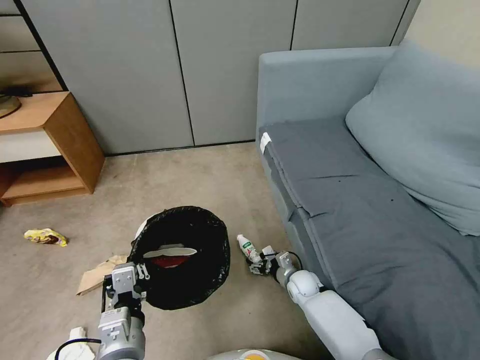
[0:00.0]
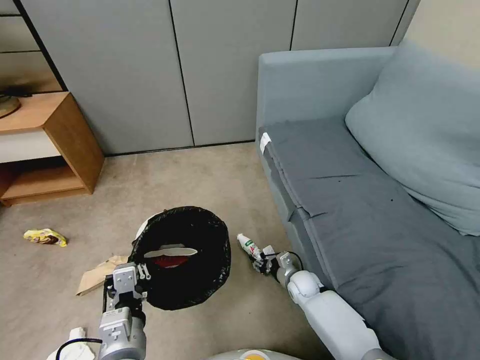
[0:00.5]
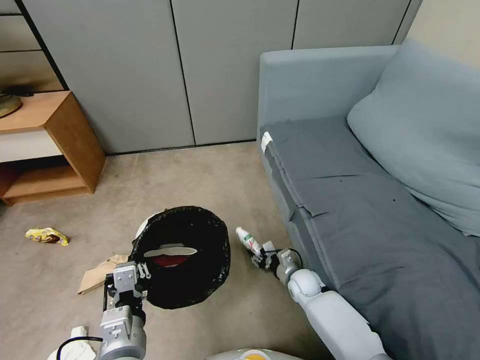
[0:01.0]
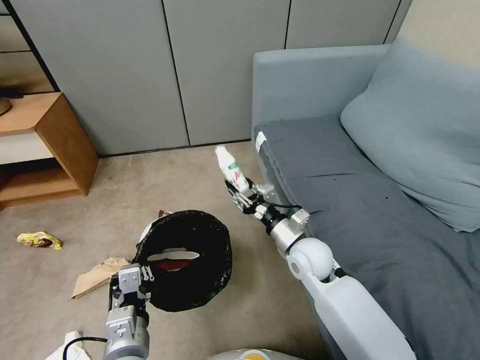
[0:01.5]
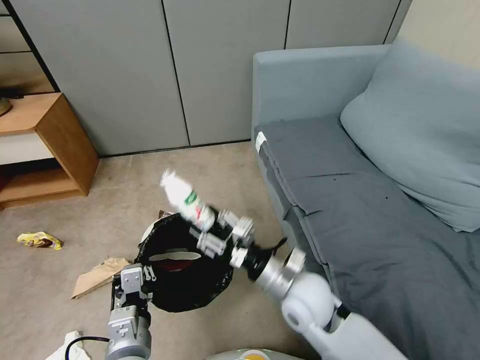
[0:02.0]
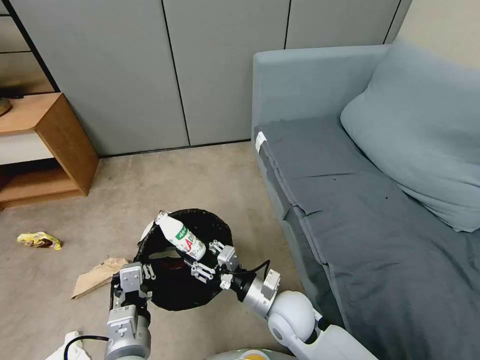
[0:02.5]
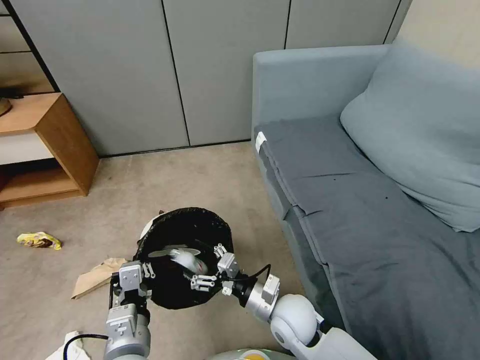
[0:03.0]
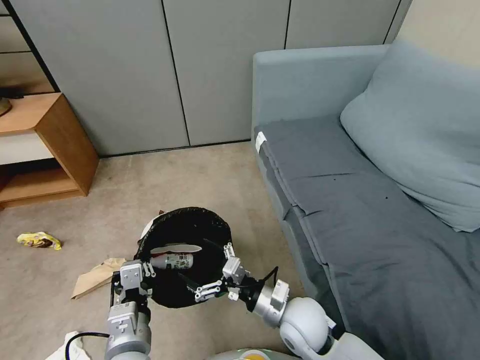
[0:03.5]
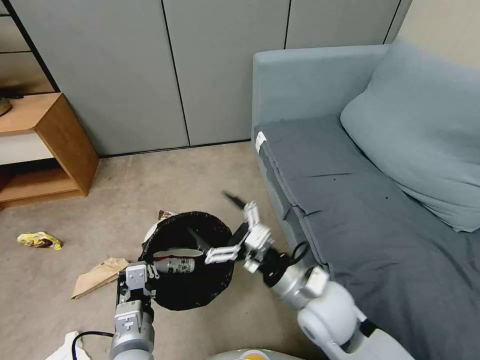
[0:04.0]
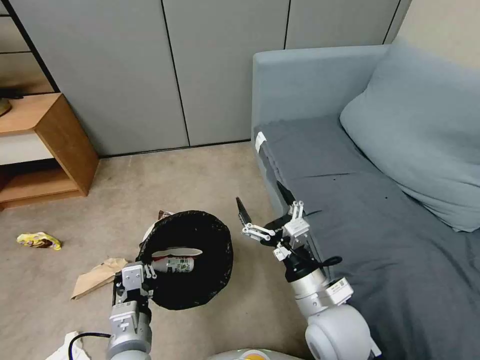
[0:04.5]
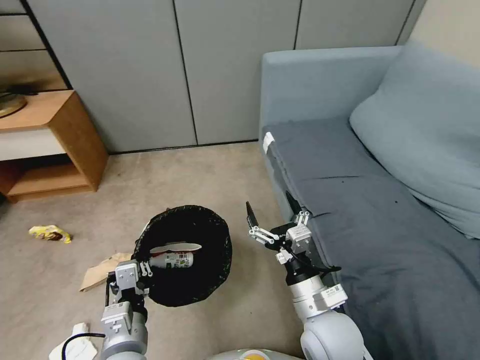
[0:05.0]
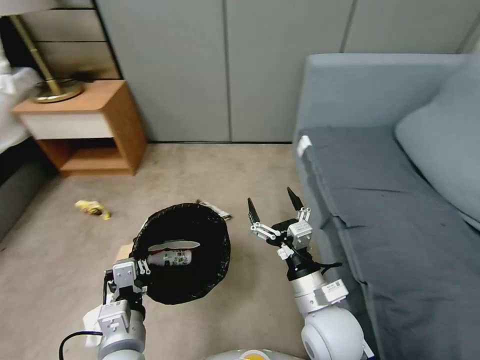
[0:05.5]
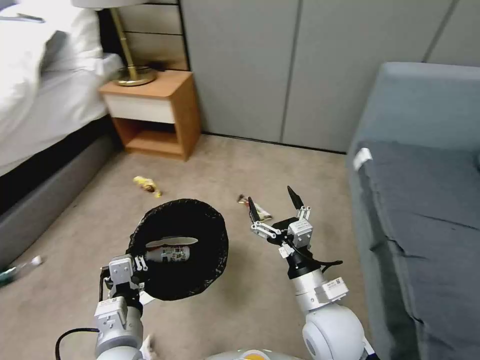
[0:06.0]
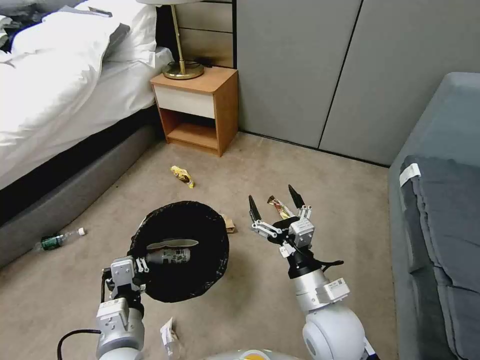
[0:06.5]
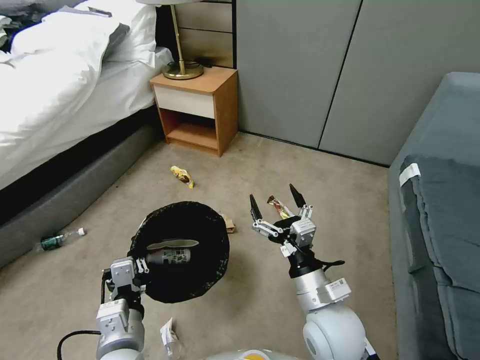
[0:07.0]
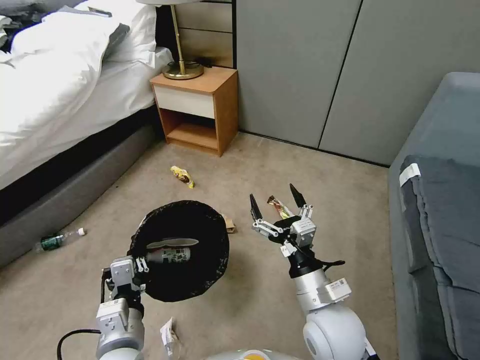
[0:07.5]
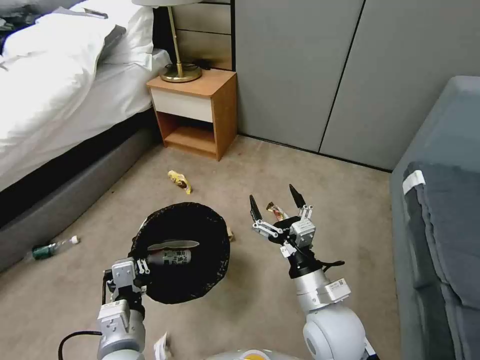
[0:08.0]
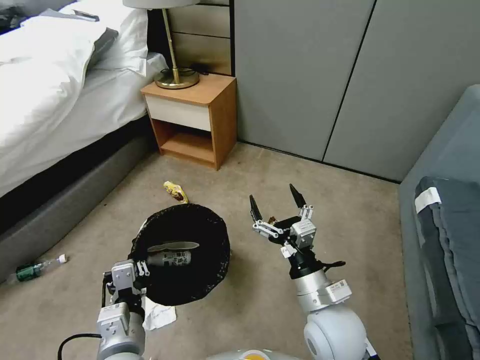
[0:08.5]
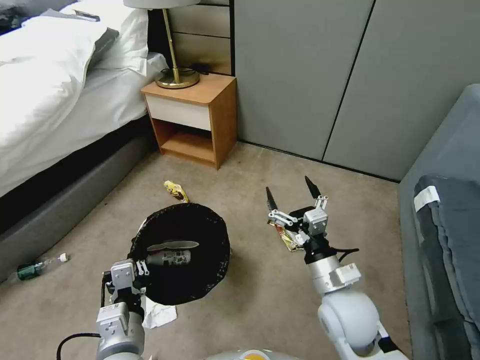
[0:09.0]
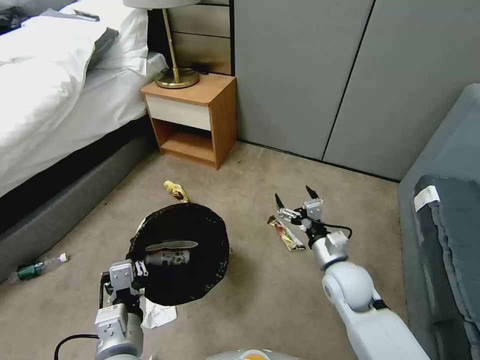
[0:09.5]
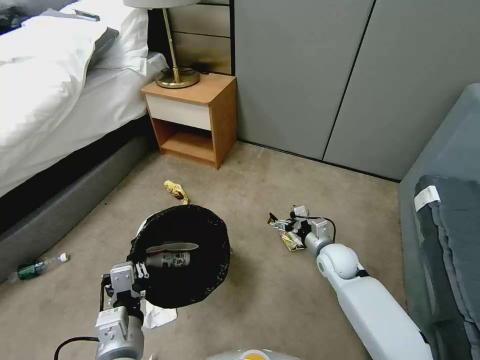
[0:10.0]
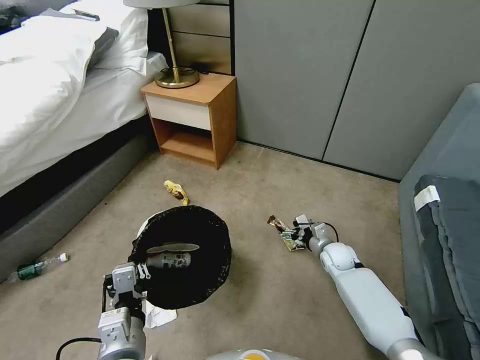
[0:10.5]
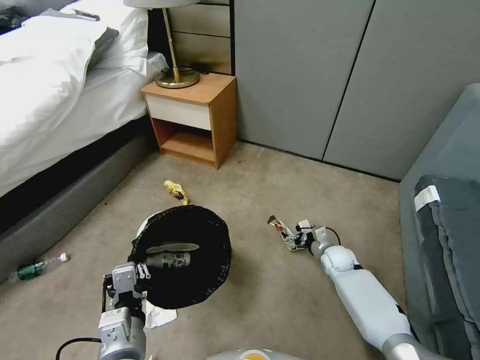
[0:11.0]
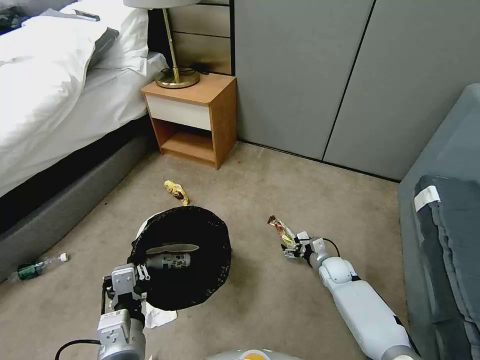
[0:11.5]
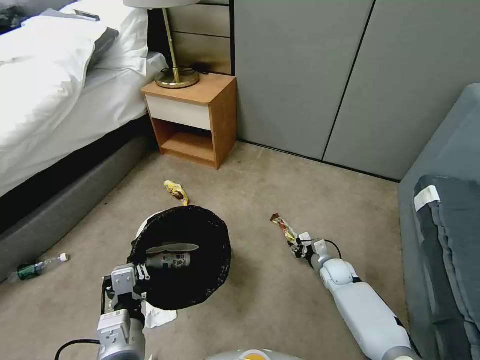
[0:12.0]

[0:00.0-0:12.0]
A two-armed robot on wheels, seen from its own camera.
Task of the whole recording: Pick up the trash bin, then pick up the garbage from the floor and place it into the trash bin.
0:00.0 to 0:02.0: The right gripper shifts about 25 cm upward and backward, and closes up.
0:02.0 to 0:04.0: The right gripper moves approximately 10 cm downward and comes back, and opens its fingers.
0:08.0 to 0:10.0: The right gripper heads forward, downward and to the right, covering about 25 cm.
0:10.0 to 0:12.0: The right gripper goes approximately 10 cm downward, and closes up.

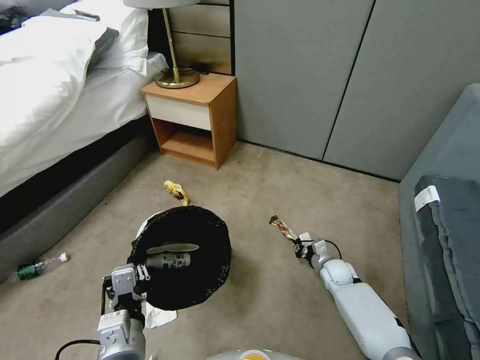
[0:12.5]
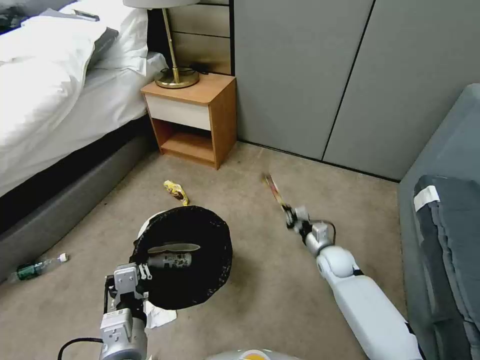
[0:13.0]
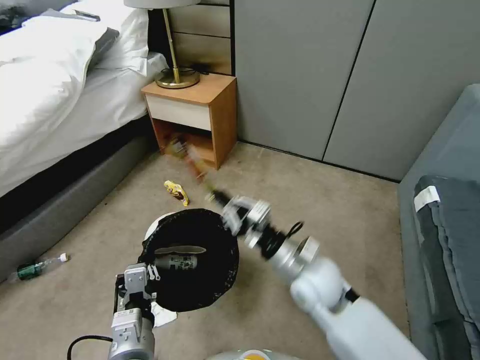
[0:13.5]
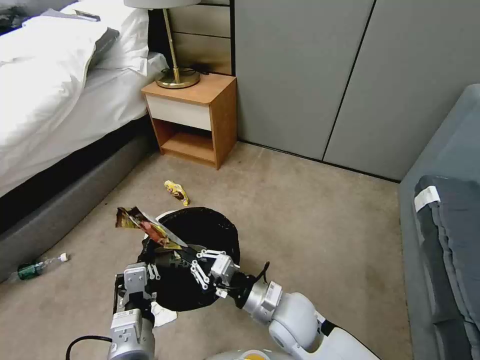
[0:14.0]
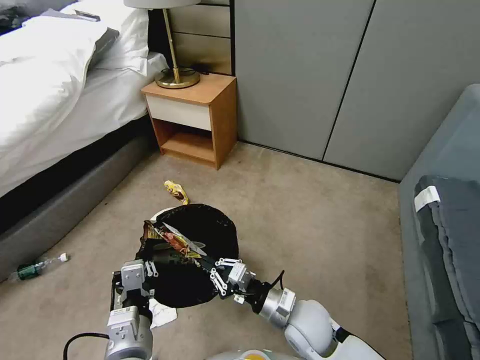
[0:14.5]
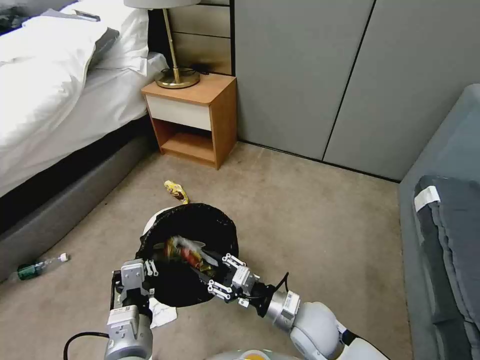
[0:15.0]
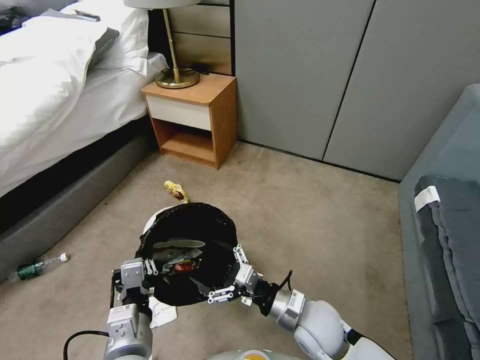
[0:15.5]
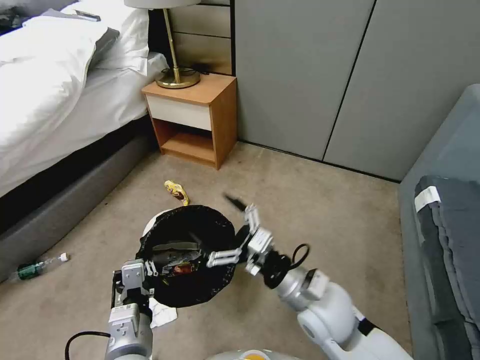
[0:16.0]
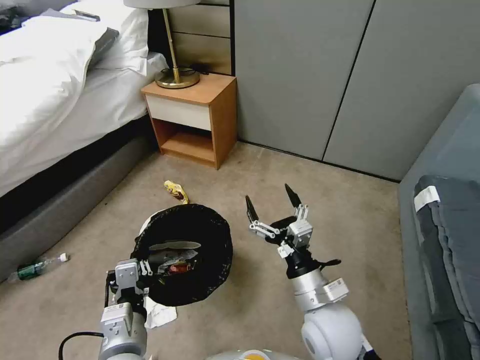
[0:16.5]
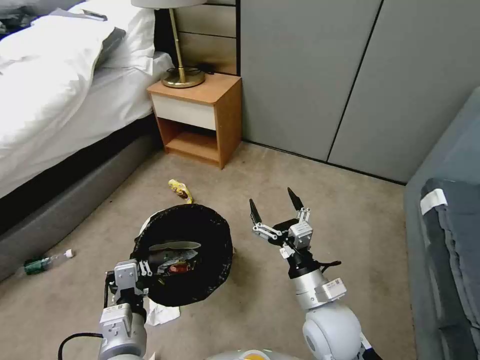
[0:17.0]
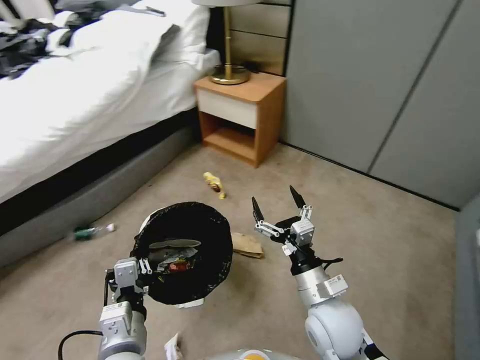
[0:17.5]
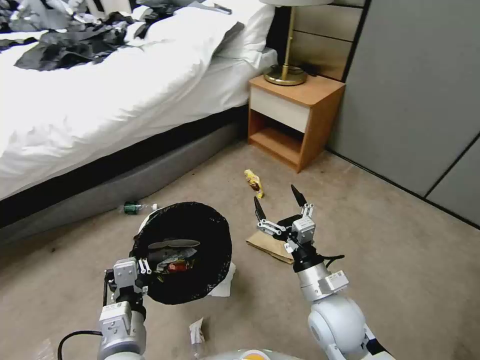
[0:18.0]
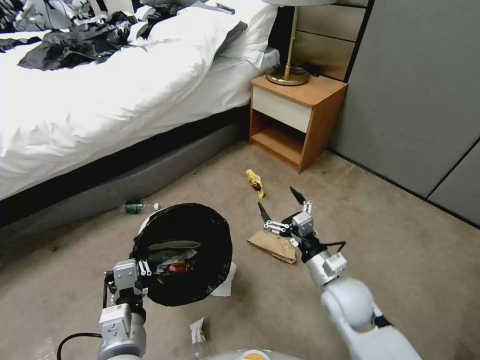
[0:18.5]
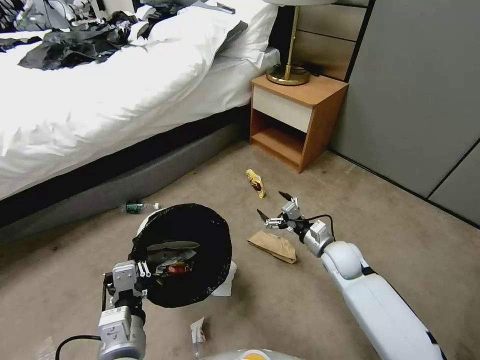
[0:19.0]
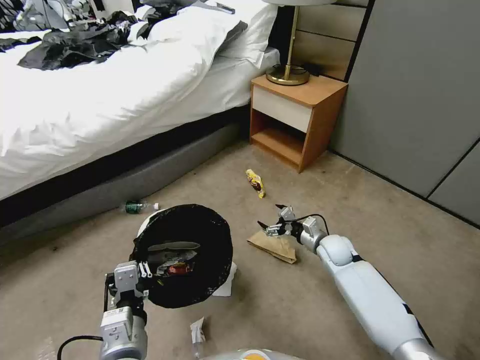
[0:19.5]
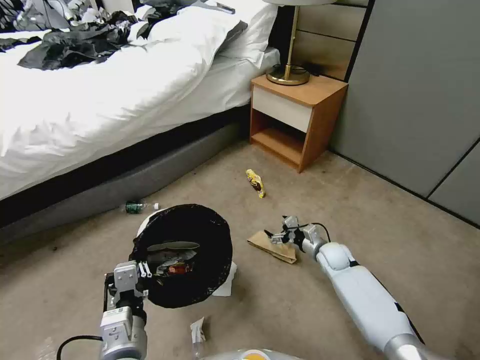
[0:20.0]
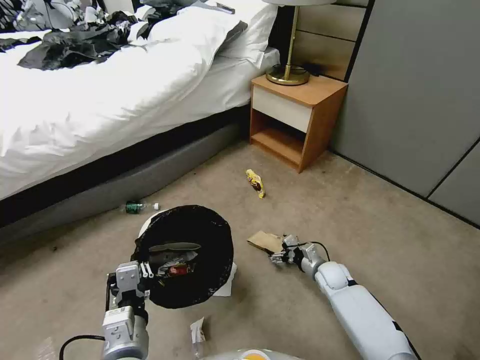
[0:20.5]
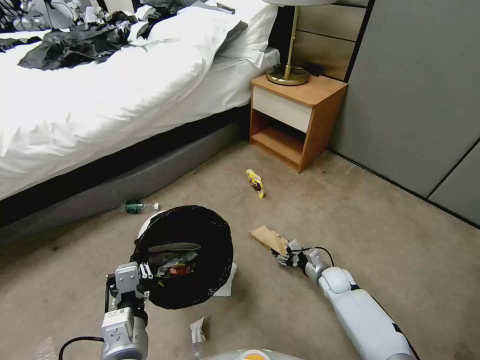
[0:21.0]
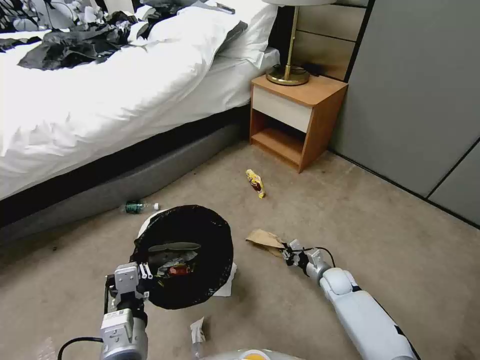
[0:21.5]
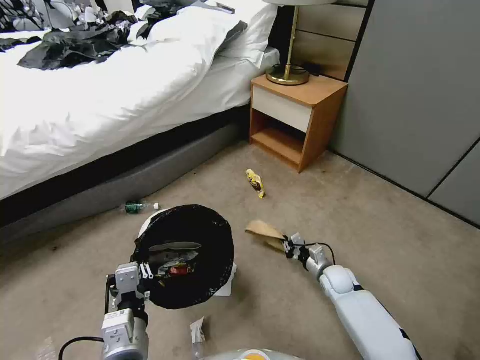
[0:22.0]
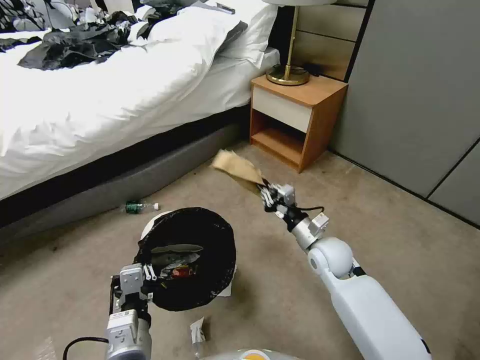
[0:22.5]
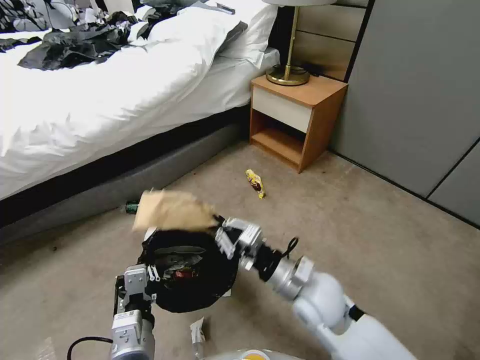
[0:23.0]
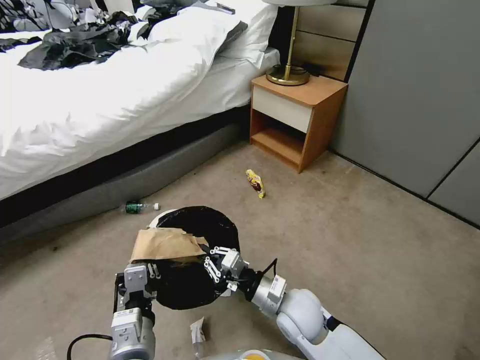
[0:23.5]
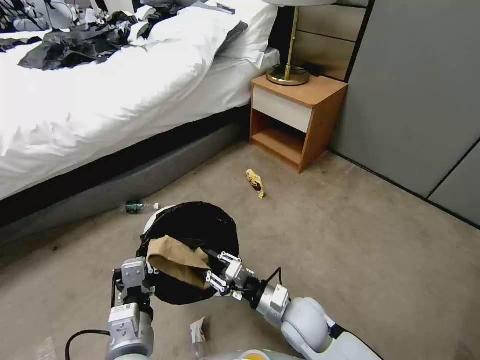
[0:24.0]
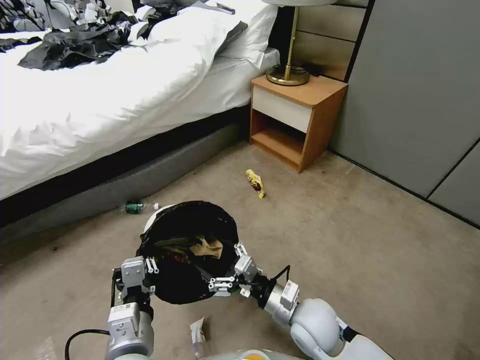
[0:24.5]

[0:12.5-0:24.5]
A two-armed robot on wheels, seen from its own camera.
Task of the whole recording: Pick up the trash bin, then pick up the garbage from the floor and place it into the trash bin.
0:12.5 to 0:14.5: The right gripper travels to the left, backward and upward by about 25 cm.
0:14.5 to 0:16.5: The right gripper shifts roughly 10 cm upward, and opens.
0:16.5 to 0:18.5: The right gripper heads to the right and forward, covering approximately 10 cm.
0:18.5 to 0:20.5: The right gripper heads downward and forward, covering some 20 cm.
0:20.5 to 0:22.5: The right gripper moves upward, about 20 cm, and closes its fingers.
0:22.5 to 0:24.5: The right gripper heads backward and to the left, covering roughly 15 cm, and opens up.

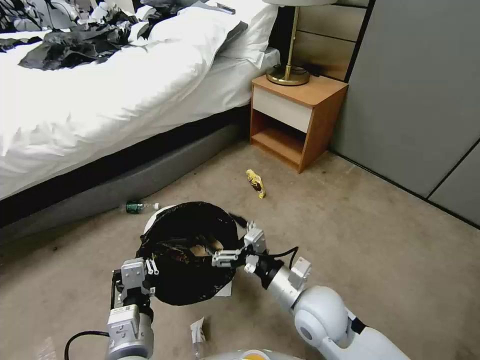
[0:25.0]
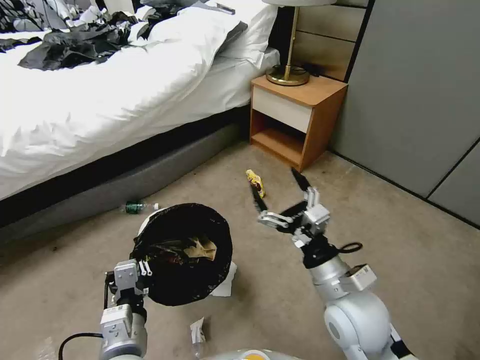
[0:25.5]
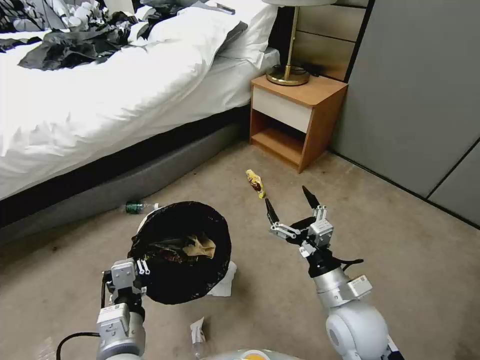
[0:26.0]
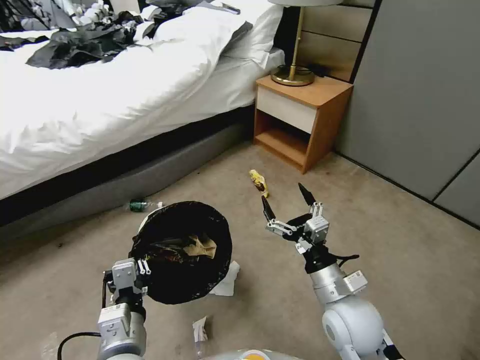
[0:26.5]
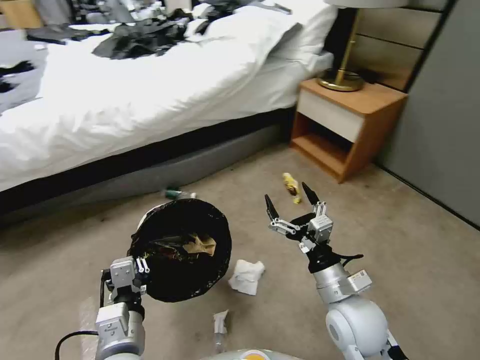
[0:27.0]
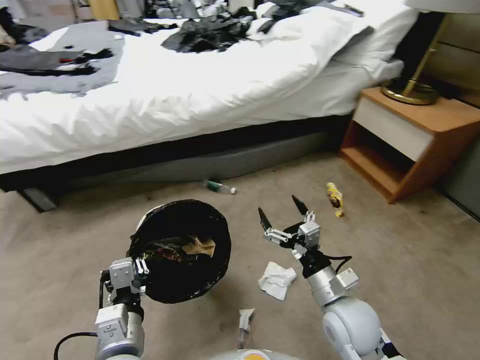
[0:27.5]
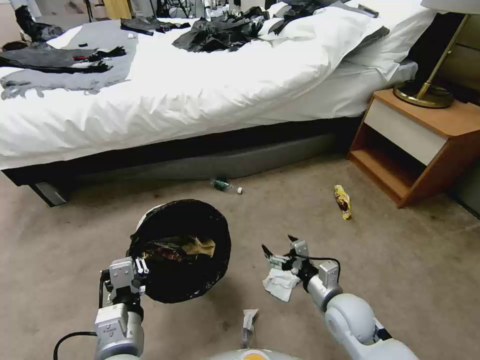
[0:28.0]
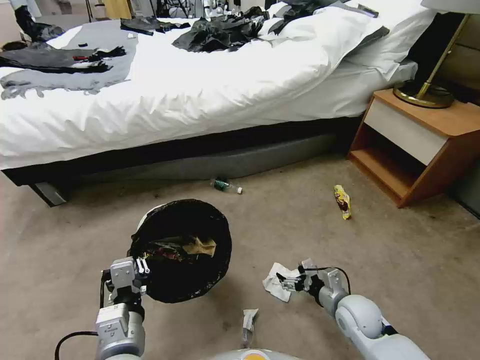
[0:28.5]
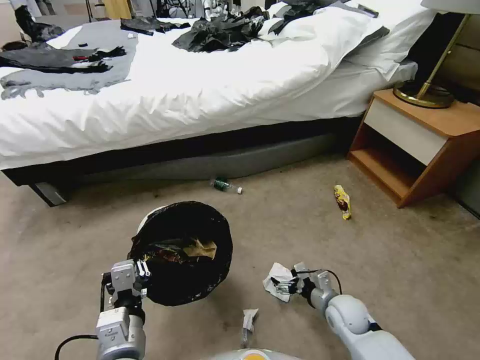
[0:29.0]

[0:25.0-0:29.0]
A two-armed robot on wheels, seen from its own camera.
Task of the whole recording: Pick up the trash bin, then pick up the garbage from the floor and place it into the trash bin.
0:25.0 to 0:27.0: The right gripper shifts approximately 5 cm to the right.
0:27.0 to 0:29.0: The right gripper is displaced downward by some 20 cm.
